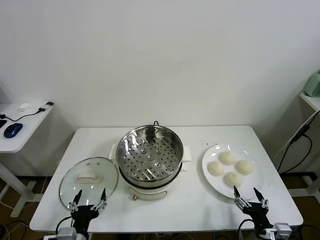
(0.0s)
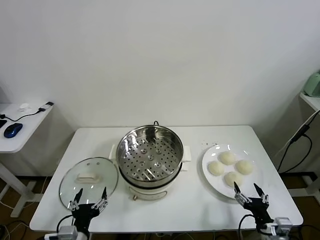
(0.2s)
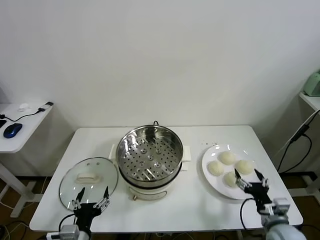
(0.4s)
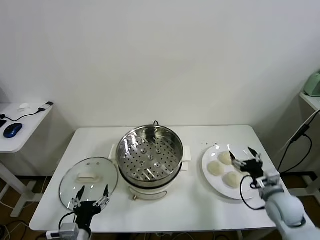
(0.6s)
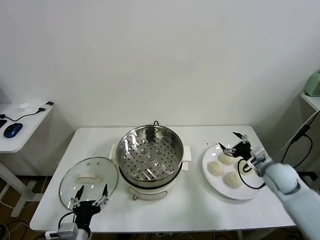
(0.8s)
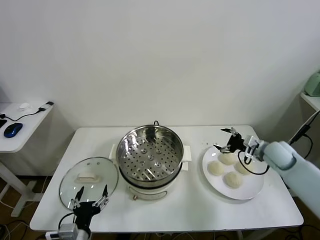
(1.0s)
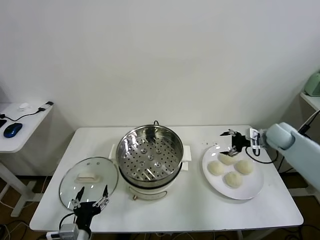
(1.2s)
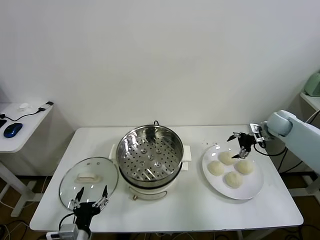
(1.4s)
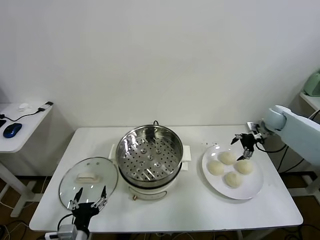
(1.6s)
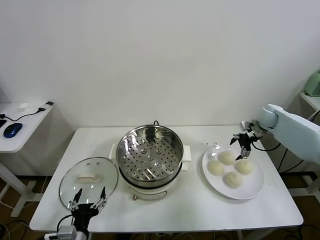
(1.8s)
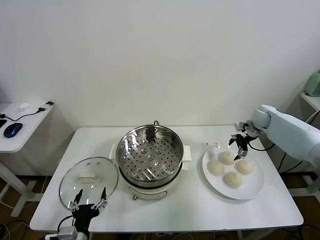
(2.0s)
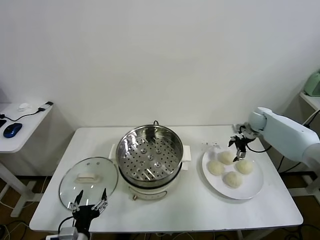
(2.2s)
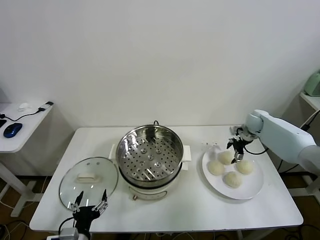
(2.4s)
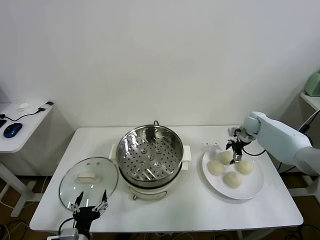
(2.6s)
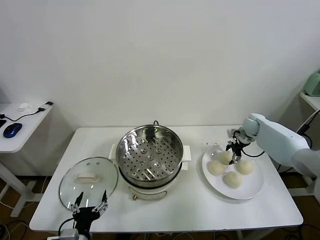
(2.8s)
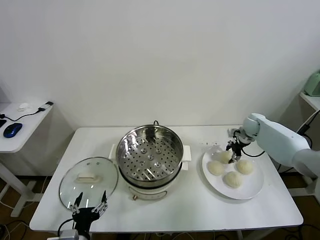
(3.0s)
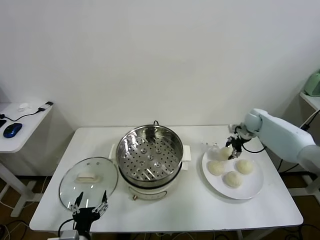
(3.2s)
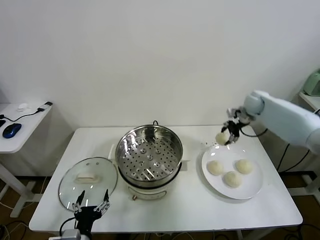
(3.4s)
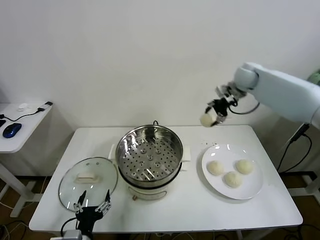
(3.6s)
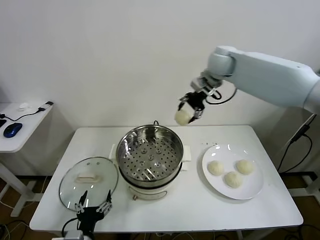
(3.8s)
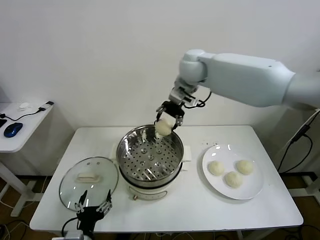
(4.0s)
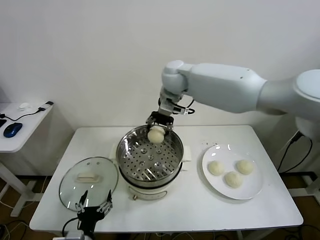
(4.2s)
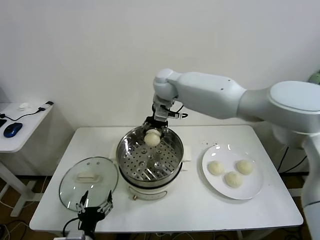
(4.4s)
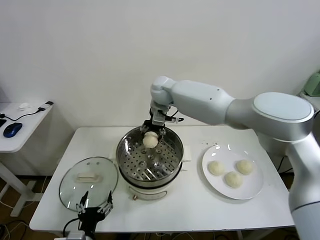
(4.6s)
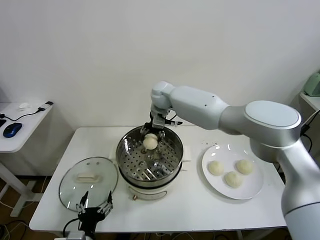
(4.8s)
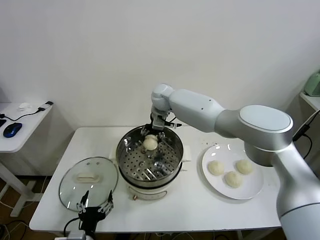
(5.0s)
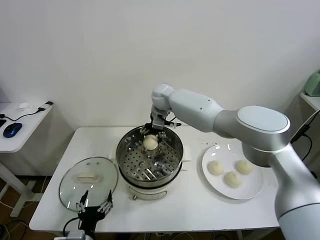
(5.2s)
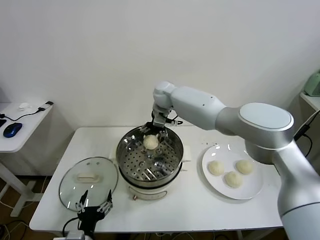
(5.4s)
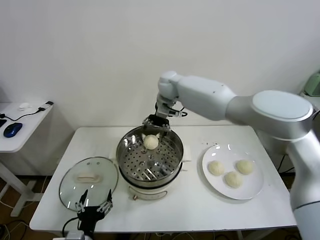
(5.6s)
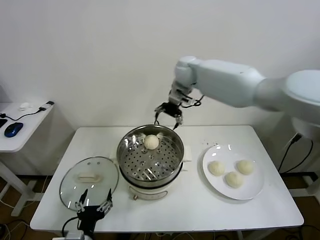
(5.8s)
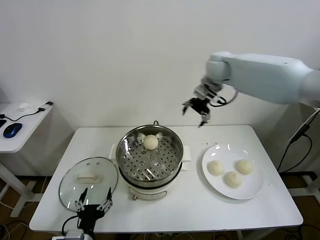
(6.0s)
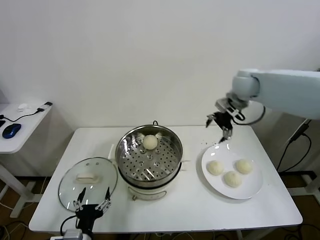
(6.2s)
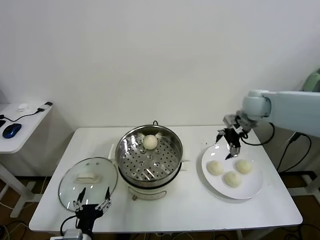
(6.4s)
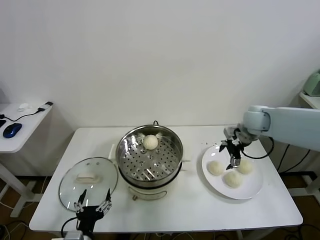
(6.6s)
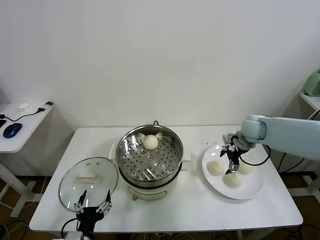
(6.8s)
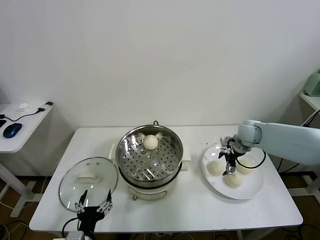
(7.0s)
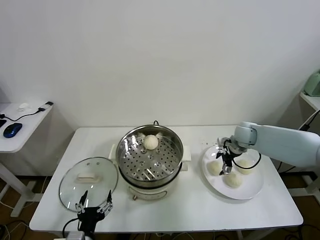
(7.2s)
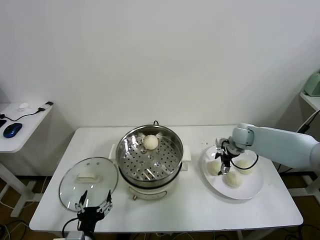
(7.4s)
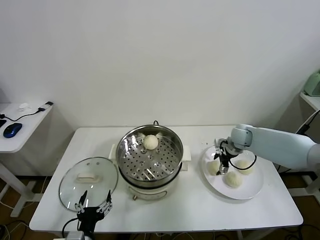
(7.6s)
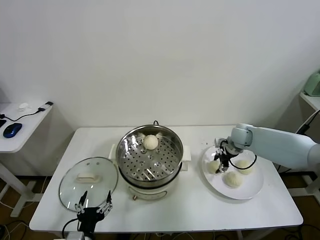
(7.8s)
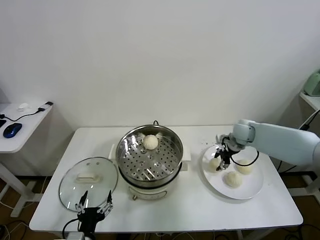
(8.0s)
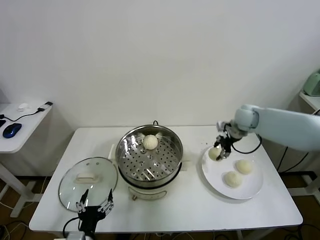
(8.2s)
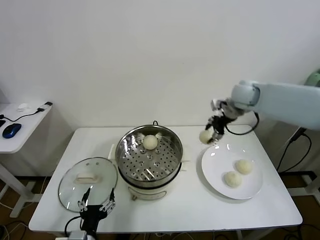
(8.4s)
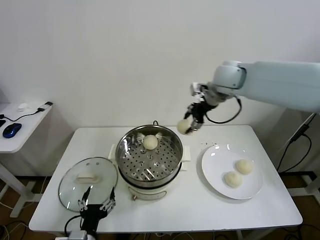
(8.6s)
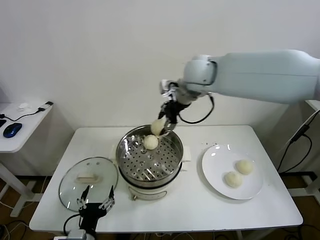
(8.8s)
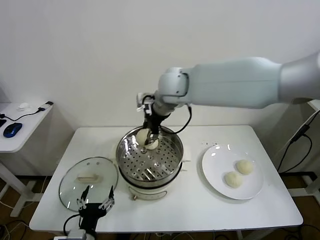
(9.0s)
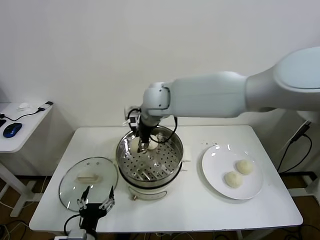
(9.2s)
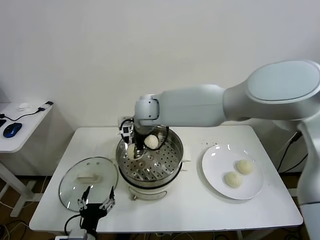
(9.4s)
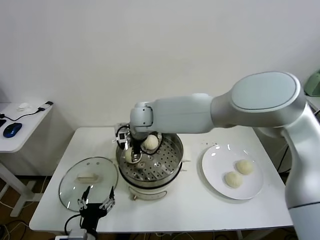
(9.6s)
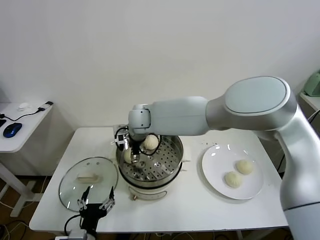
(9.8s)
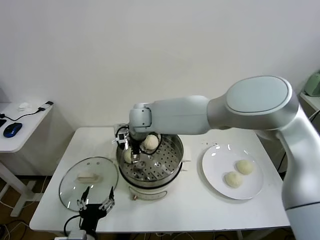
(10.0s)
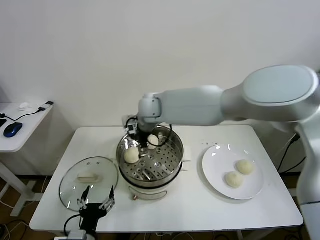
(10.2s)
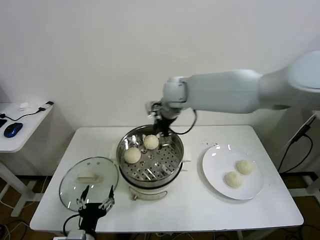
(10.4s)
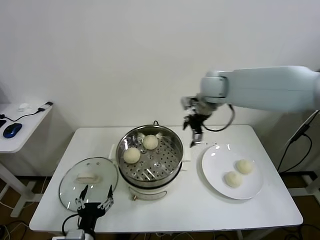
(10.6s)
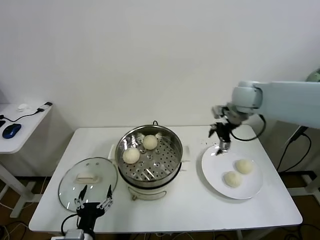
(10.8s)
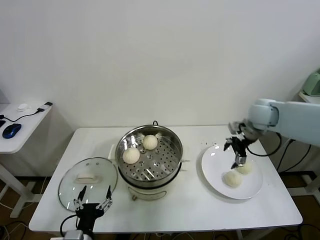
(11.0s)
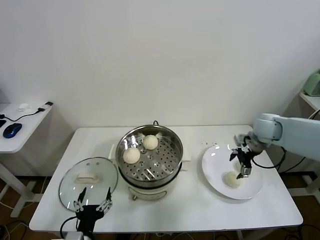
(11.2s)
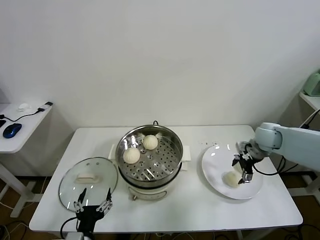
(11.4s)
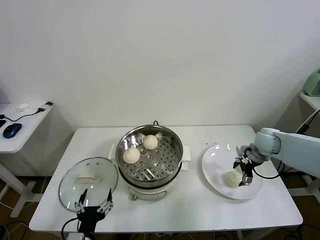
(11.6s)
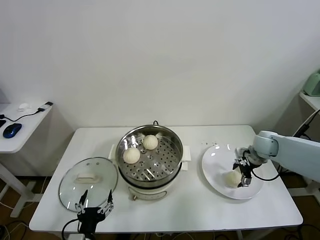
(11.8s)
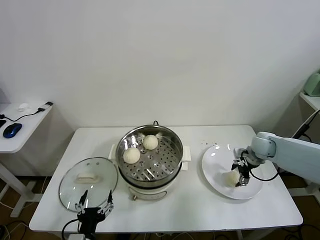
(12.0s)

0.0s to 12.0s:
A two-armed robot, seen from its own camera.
Task of the whole recording: take steamed baozi put them in steamer.
Step, 0.0s to 2.8s: Grasp the baozi in the plate with right gripper.
Step, 3.2s to 5.4s: Place the baozi on the steamer with right gripper.
Step, 5.6s to 7.8s: Grasp the baozi in the plate with right gripper.
Step, 8.0s to 9.8s: Place the baozi on the steamer with right gripper.
1.6s to 3.0s: The right gripper is displaced downward by roughly 5 cm, and closes its fingers.
3.0s to 4.4s: The right gripper is displaced to the left and upward by approximately 40 cm.
4.4s to 6.0s: The right gripper heads to the right, covering approximately 25 cm, and opens.
6.0s to 7.6s: The right gripper shifts roughly 25 cm downward, and closes up.
7.6s to 9.0s: The right gripper shifts some 40 cm to the left and upward, and closes its fingers.
9.0s to 10.4s: The right gripper goes approximately 10 cm to the right, and opens.
10.4s to 12.0s: The right gripper moves to the right and downward, some 35 cm.

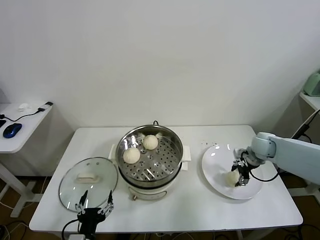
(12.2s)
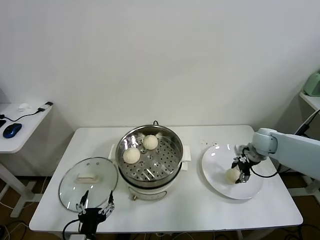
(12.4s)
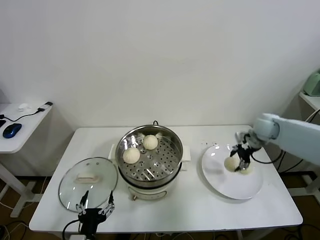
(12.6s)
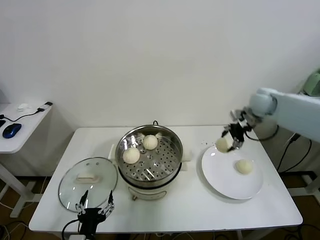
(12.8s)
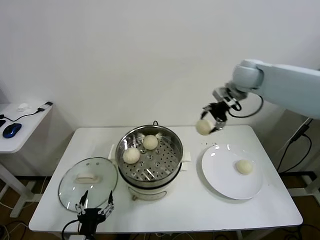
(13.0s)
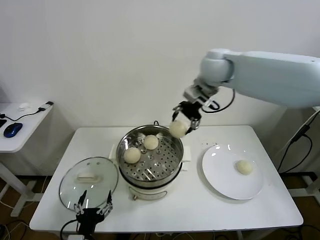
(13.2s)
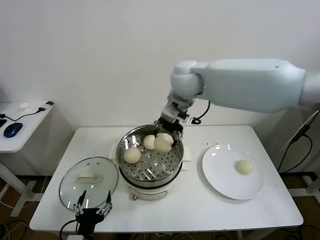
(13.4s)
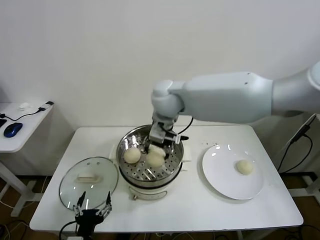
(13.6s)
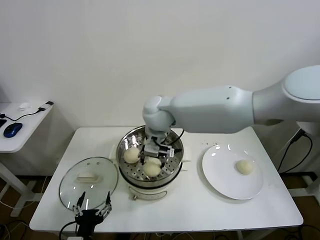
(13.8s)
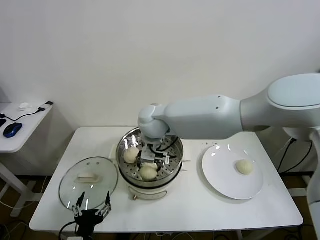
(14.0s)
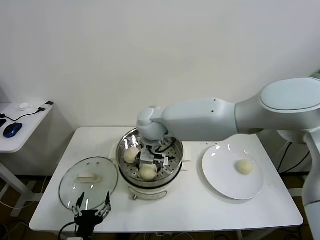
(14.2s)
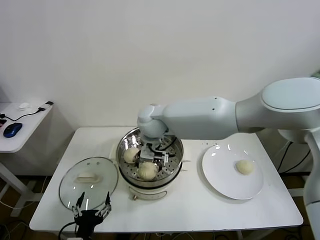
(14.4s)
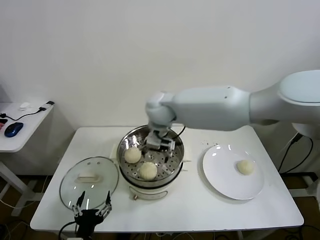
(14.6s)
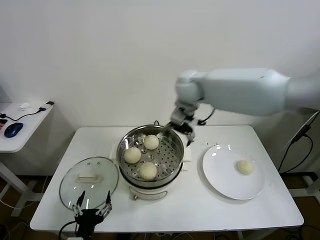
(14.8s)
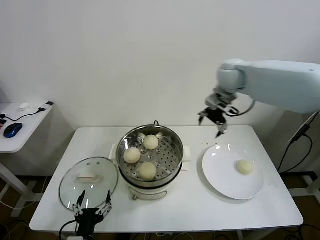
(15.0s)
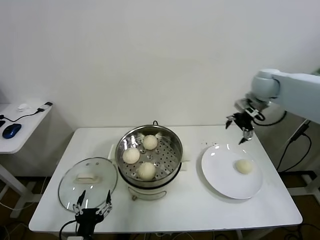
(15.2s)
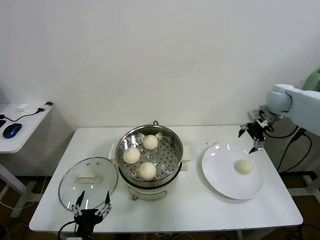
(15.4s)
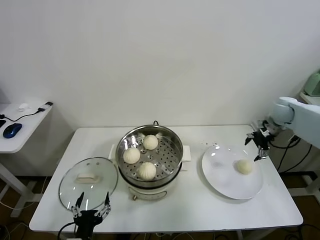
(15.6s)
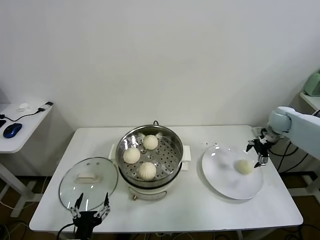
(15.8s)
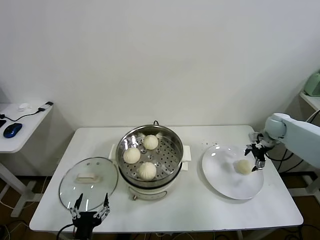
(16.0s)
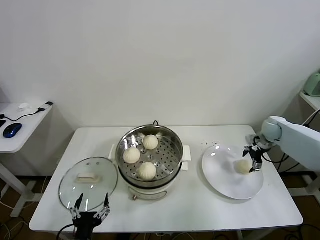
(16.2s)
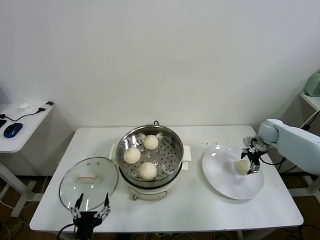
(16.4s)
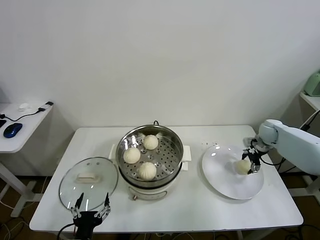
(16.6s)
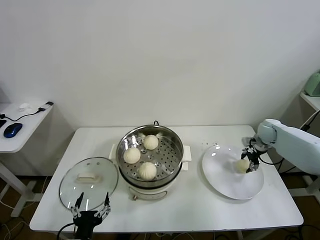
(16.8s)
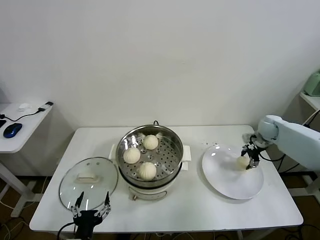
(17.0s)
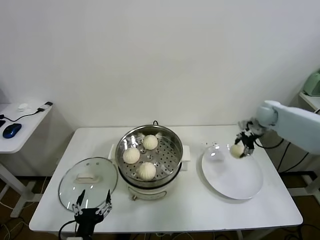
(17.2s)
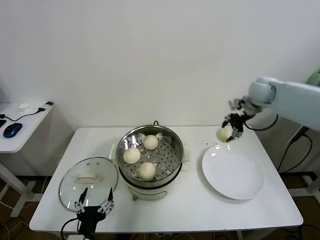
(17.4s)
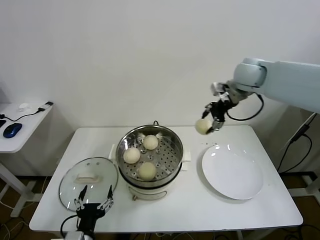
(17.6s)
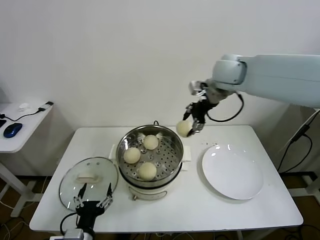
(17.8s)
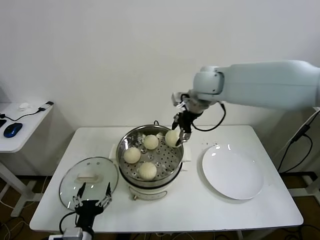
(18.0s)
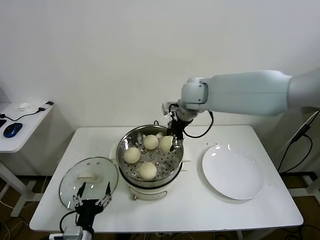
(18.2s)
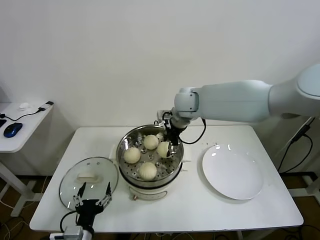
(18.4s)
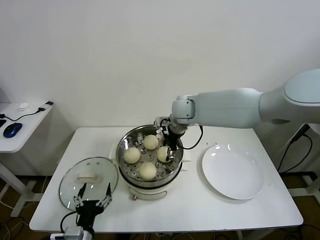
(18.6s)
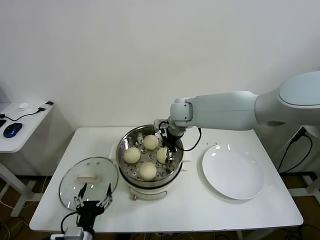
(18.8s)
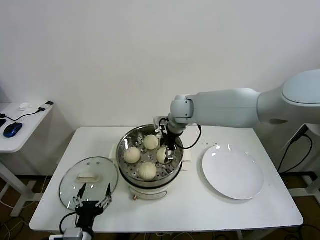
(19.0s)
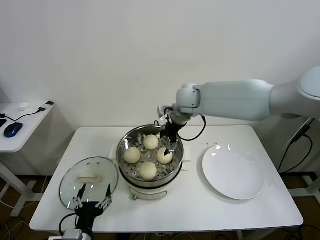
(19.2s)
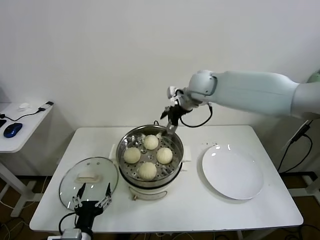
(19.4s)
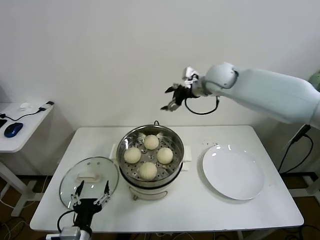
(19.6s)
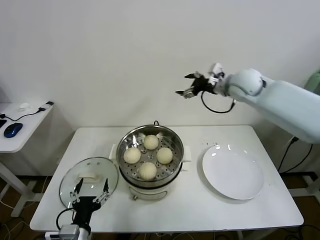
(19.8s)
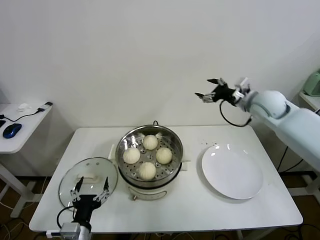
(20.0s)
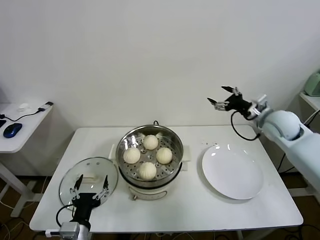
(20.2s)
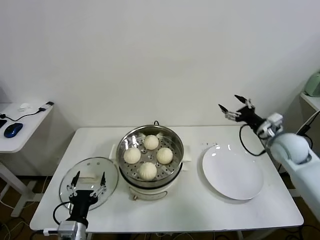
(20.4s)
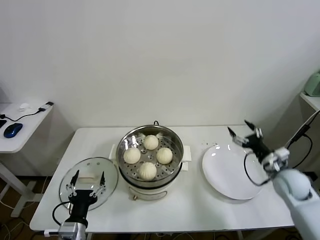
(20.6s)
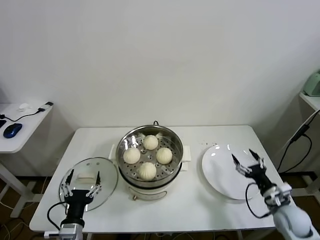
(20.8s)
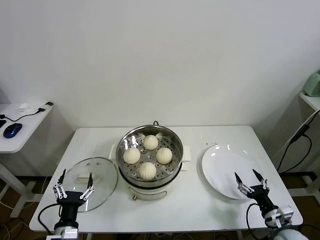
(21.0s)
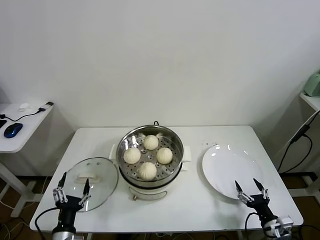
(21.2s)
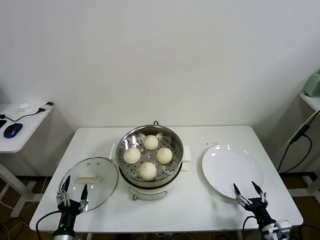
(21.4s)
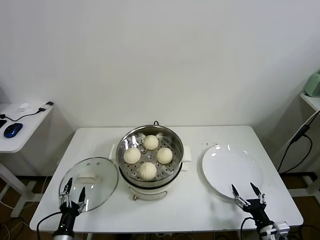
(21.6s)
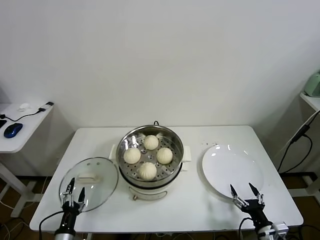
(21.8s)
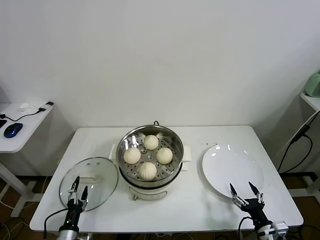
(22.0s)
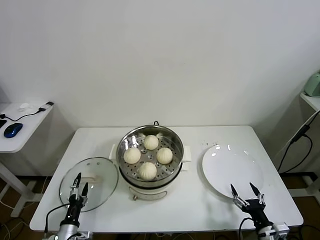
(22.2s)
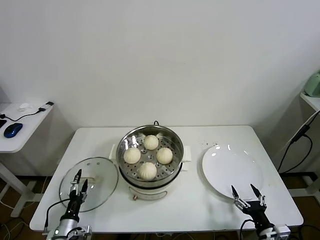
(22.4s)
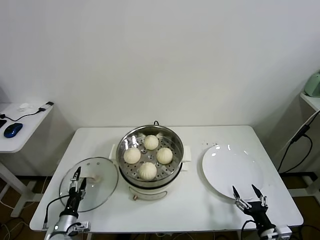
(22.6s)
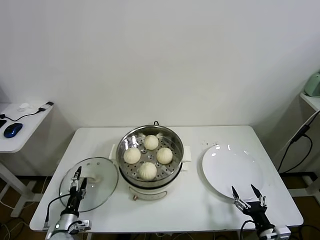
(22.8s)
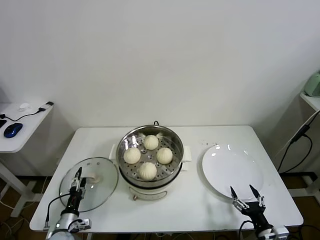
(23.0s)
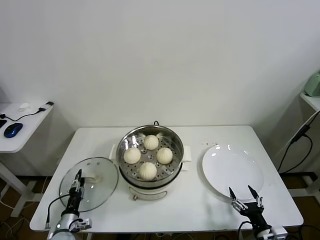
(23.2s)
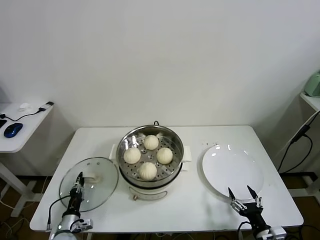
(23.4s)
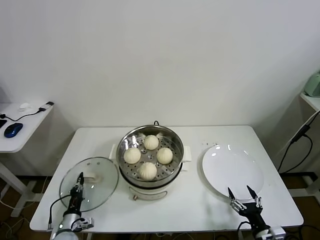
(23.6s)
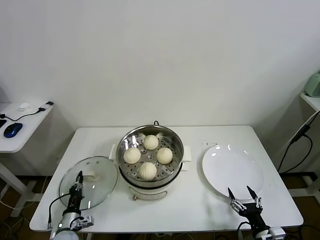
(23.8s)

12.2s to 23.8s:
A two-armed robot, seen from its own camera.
Task of the whole recording: take steamed baozi put them in steamer.
Step, 12.4s to 14.4s: Place the baozi on the steamer with right gripper.
Step, 14.6s to 16.6s: Grasp the baozi in the plate with right gripper.
Step, 16.8s to 19.2s: Place the baozi on the steamer with right gripper.
Step, 19.4s to 23.6s: Grasp the pot lid with left gripper.
12.2s to 13.6s: The right gripper moves to the left and upward, approximately 40 cm.
13.6s to 15.0s: The right gripper goes approximately 25 cm to the right, and opens.
15.0s to 16.6s: The right gripper travels downward and to the right by some 30 cm, and closes its fingers.
16.6s to 18.0s: The right gripper heads to the left and upward, covering approximately 40 cm.
18.0s to 19.4s: The right gripper reaches some 10 cm downward, then returns, and opens up.
19.4s to 21.0s: The right gripper goes roughly 60 cm downward, backward and to the right. The left gripper moves about 5 cm.
21.0s to 22.4s: The right gripper travels backward by about 5 cm, while the left gripper heads downward and to the left, covering some 15 cm.
22.4s to 23.8s: The left gripper closes.
